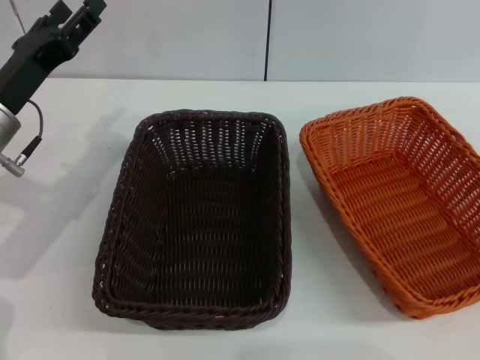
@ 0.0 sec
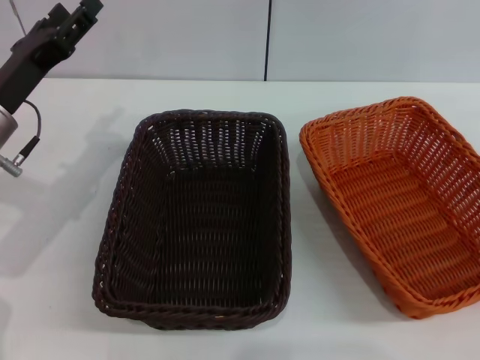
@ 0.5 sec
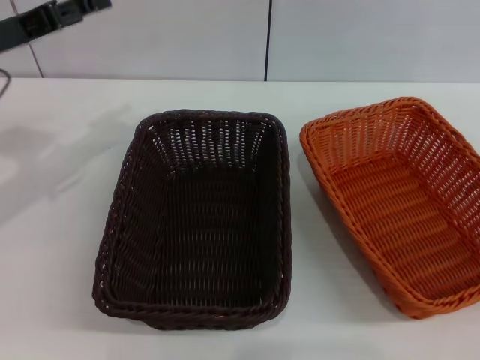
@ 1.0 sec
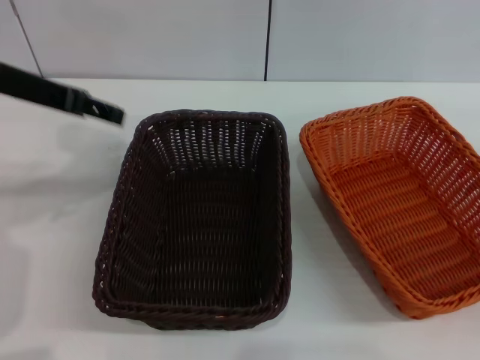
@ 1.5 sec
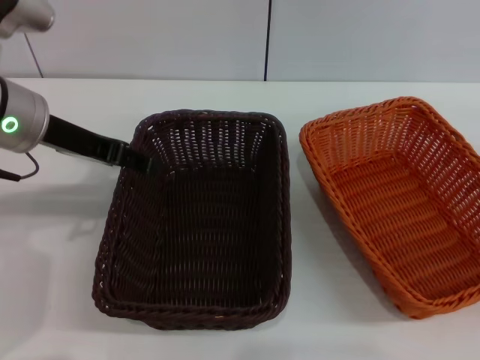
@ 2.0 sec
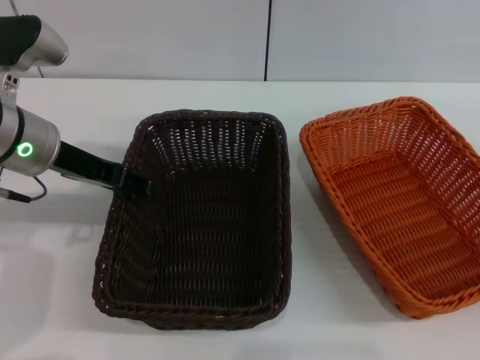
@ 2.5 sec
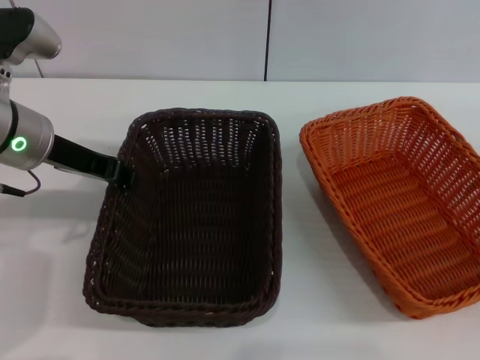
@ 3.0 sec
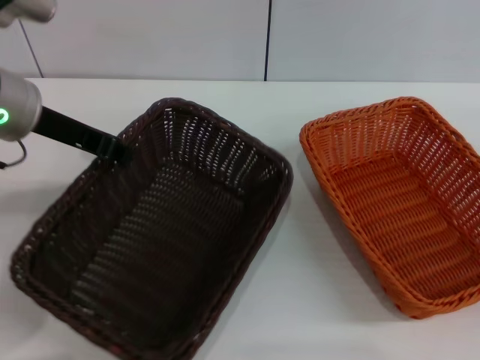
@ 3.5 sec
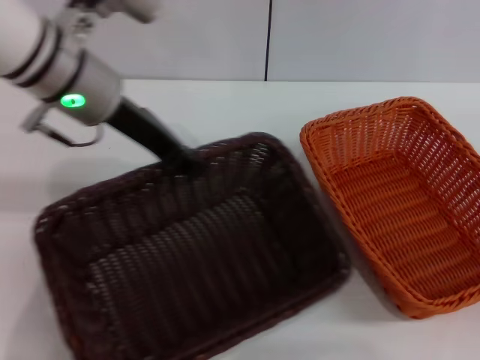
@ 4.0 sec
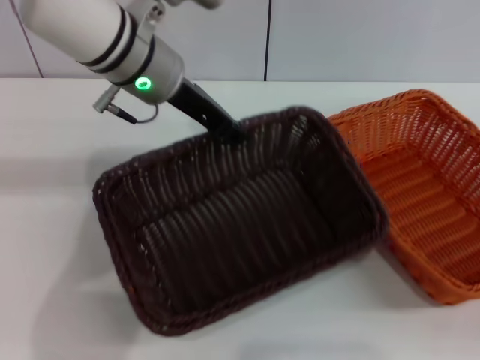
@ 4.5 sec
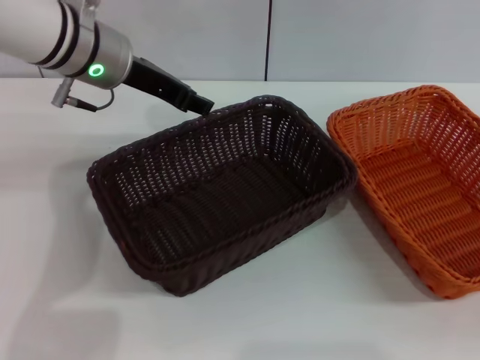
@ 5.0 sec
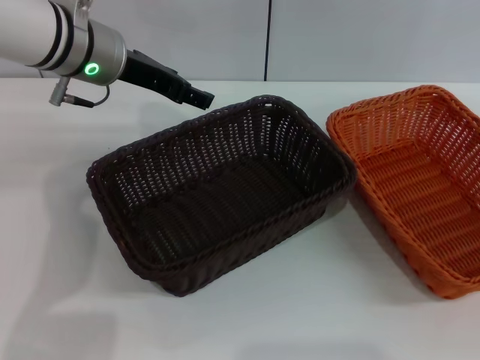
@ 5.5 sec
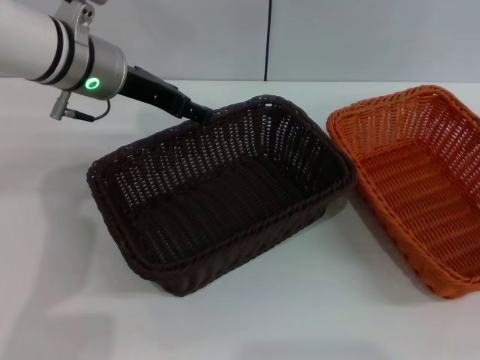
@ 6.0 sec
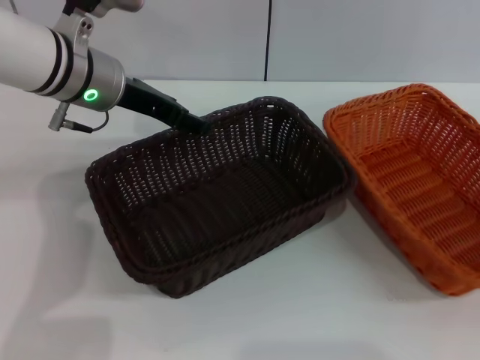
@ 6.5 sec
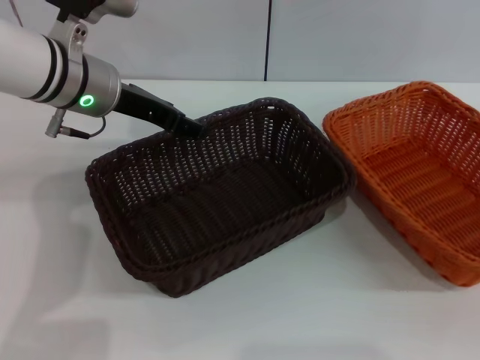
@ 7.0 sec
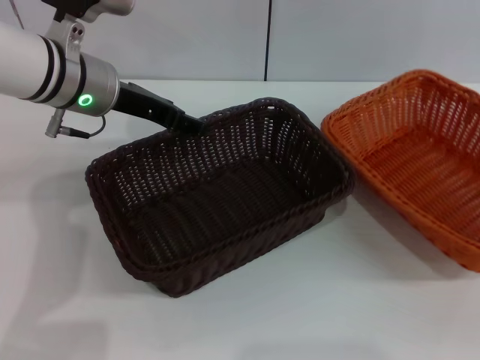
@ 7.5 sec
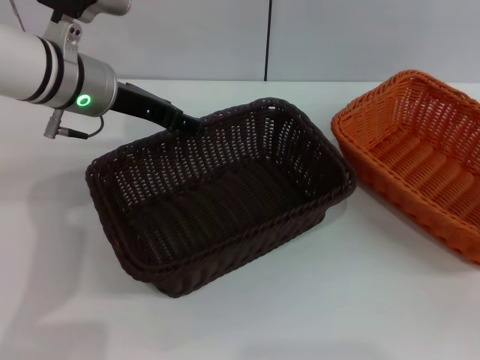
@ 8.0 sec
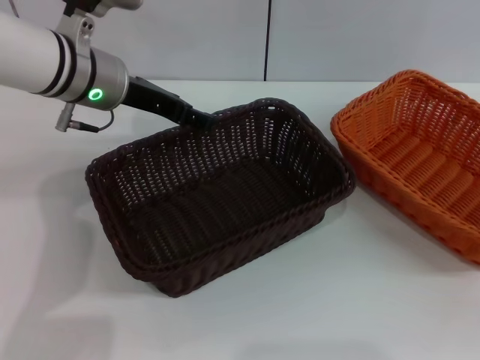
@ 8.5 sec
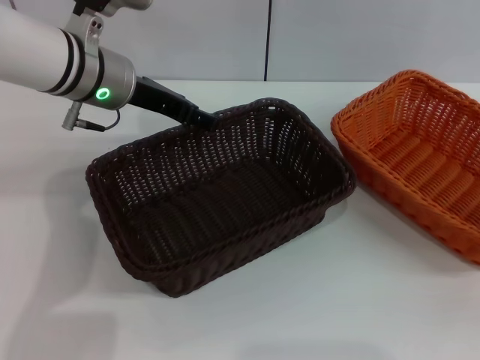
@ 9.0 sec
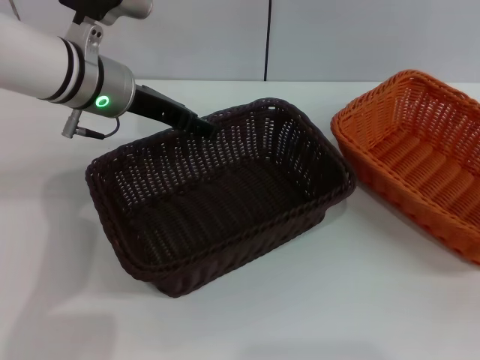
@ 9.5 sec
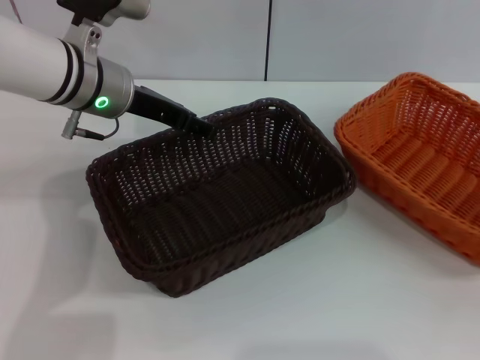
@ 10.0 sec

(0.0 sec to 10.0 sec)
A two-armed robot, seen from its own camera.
Step, 0.0 sec - 3.0 sec: Pick up the dark basket with the left gripper.
Step, 4.0 sec - 4.5 sec: Place the dark basket in the center of view with the left gripper.
Step, 5.0 sec - 7.5 sec: Pick up the light basket with the right gripper.
0.0 sec - 2.0 sec: The left gripper is displaced upward by approximately 10 cm.
2.0 sec - 4.0 sec: The left gripper travels to the right by some 5 cm, and closes.
4.0 sec - 6.0 sec: The left gripper opens, while the right gripper heads upward, covering approximately 10 cm.
6.0 sec - 8.0 sec: The right gripper closes up.
8.0 sec - 10.0 sec: The right gripper opens.

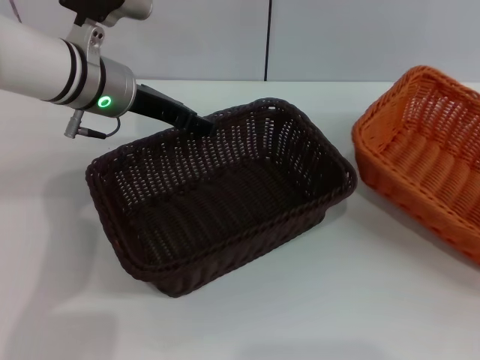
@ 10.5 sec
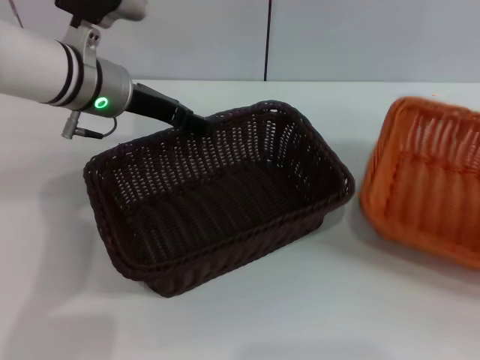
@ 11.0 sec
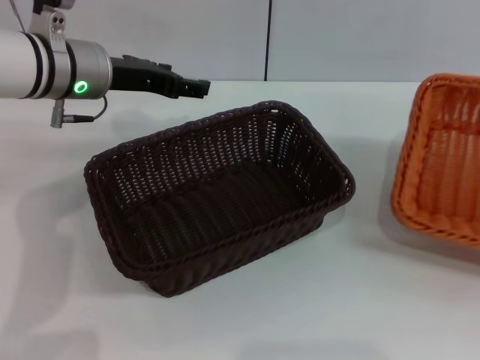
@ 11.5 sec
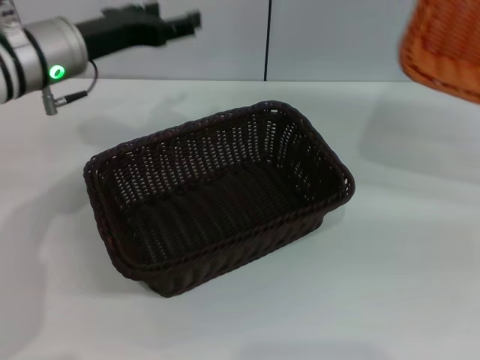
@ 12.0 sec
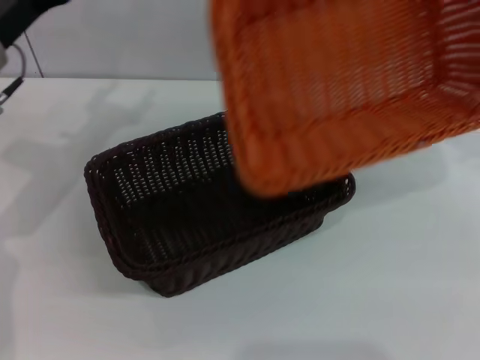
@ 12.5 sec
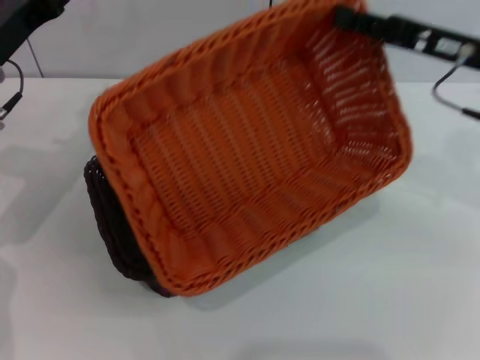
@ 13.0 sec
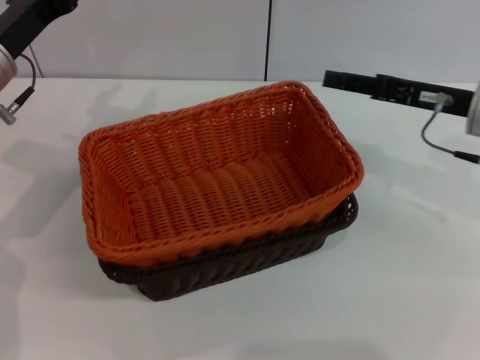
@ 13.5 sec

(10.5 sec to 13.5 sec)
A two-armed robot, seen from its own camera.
Step, 10.5 sec - 13.0 sec: Place the light basket on the dark basket with the right gripper.
10.5 sec - 12.0 sec: The right gripper travels upward by about 5 cm.
12.0 sec - 13.5 sec: The left gripper shifts some 5 cm to the left. Meanwhile the right gripper shifts approximately 20 cm to the left.
